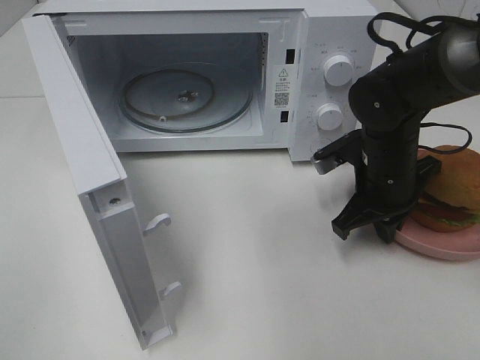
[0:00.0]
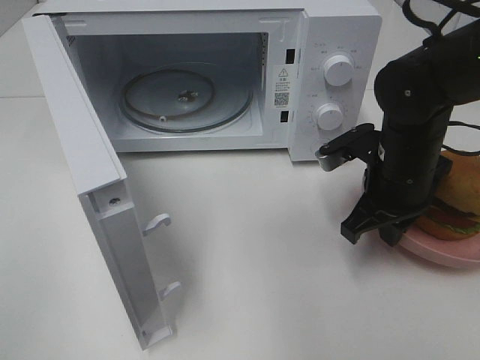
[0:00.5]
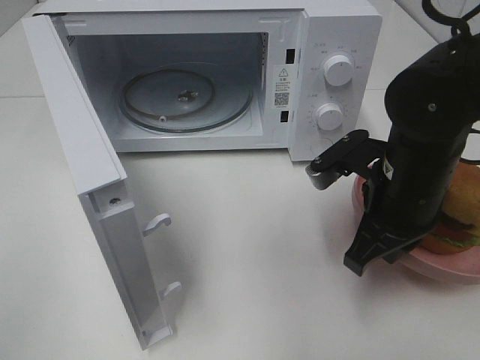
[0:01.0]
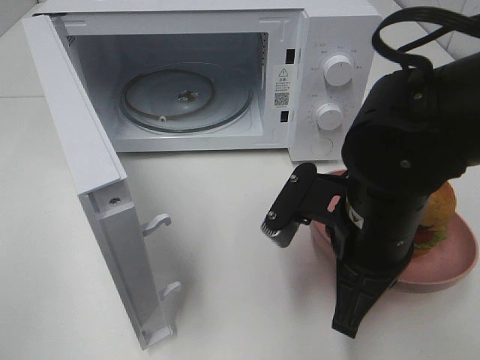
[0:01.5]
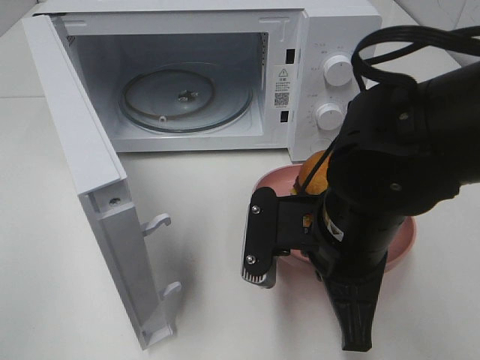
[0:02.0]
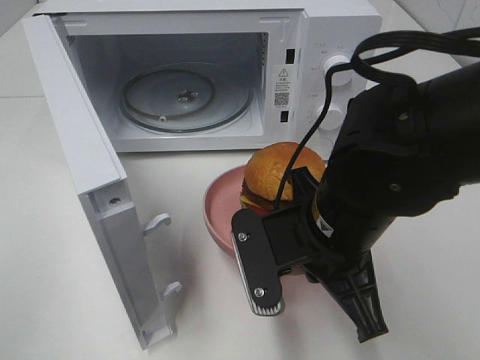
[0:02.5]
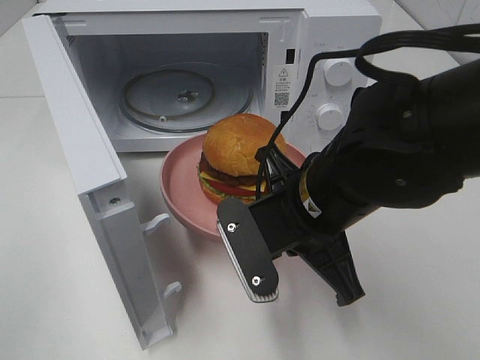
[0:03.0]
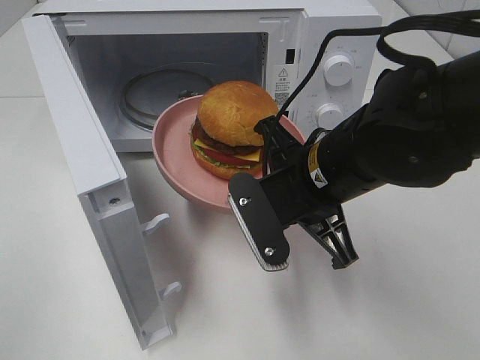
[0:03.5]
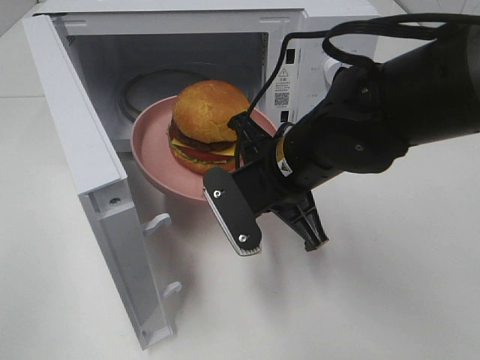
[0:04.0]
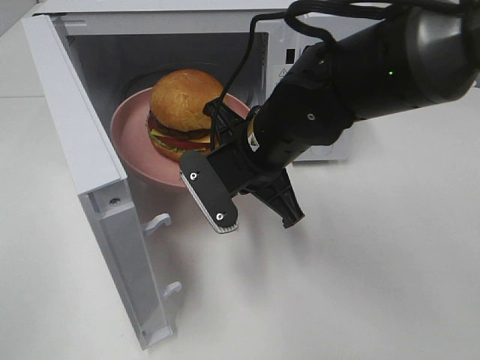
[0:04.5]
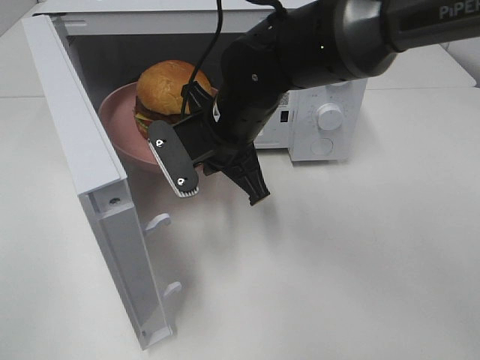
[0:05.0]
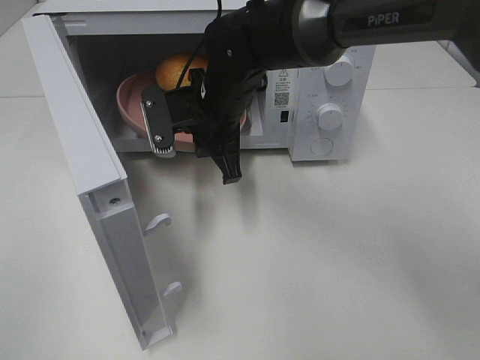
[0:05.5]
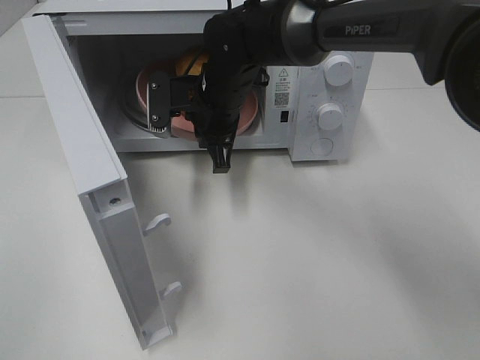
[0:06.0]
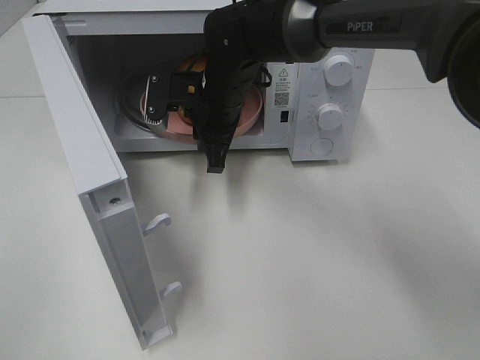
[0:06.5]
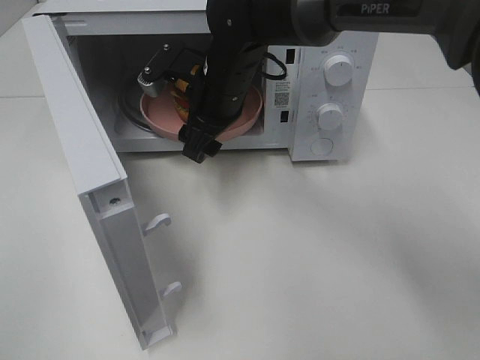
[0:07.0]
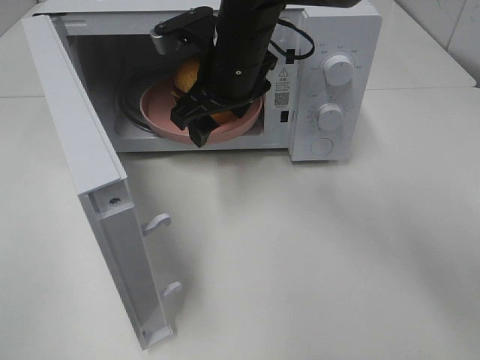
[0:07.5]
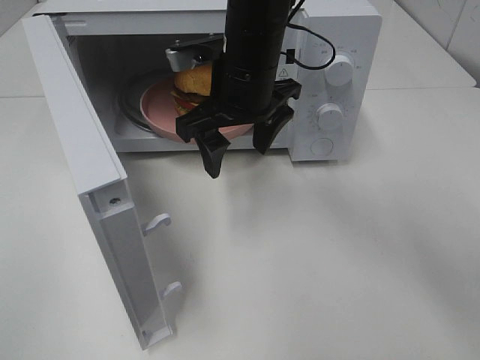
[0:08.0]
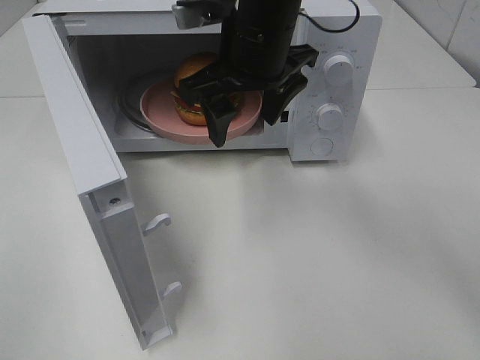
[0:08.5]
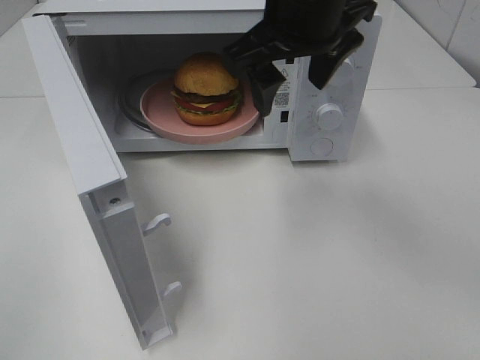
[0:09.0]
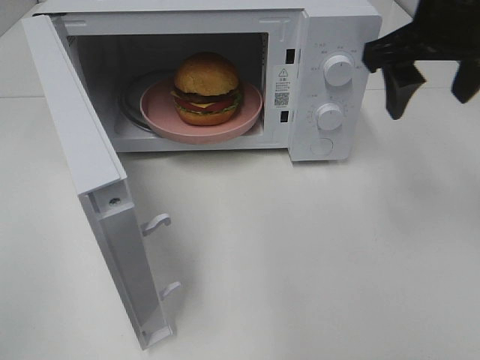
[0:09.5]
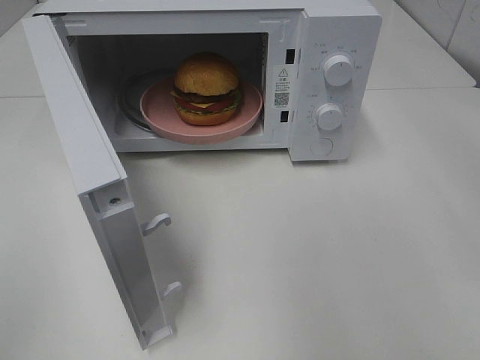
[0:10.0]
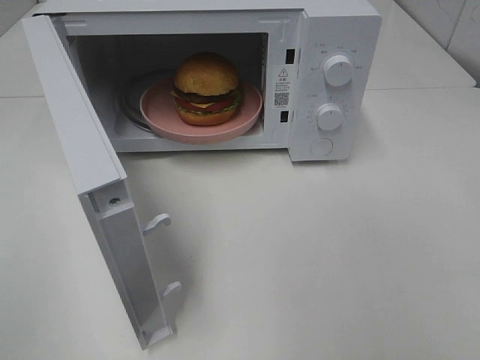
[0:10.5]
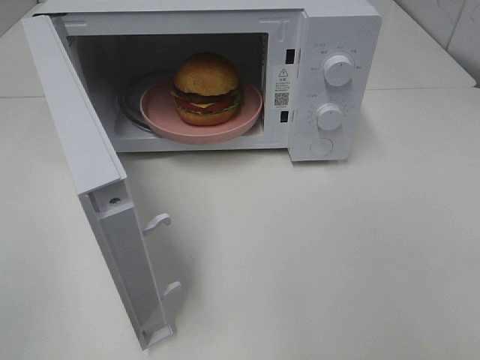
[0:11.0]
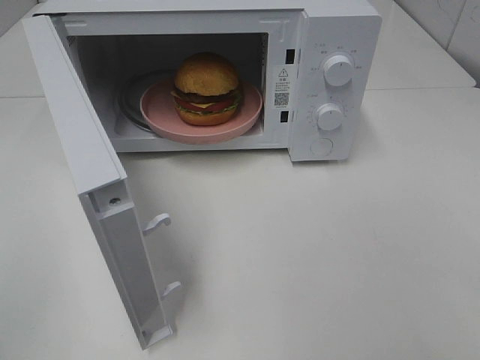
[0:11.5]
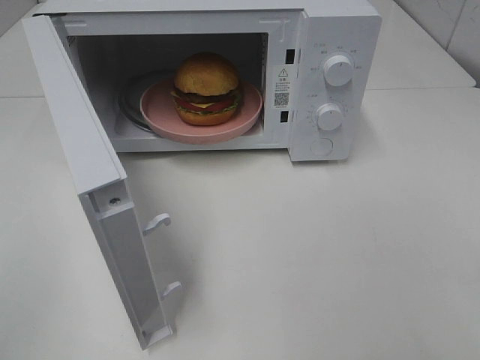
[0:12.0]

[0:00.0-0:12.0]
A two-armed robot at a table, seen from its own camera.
Task of the whole recording: Heat the burger.
Step, 0:00.0 to 0:06.5: Right hand: place the plate in the microwave.
0:00.0 to 0:02.0: The right gripper is displaced backward, to the left and upward by approximately 15 cm.
0:02.0 to 0:04.0: The right gripper shifts approximately 5 cm forward.
0:04.0 to 0:06.0: The right gripper travels forward and to the left by some 15 cm.
0:06.0 to 0:08.0: The right gripper is displaced upward by approximately 5 cm, and opens its fingers.
0:08.0 to 0:10.0: The right gripper shifts roughly 30 cm to the right, upward and backward.

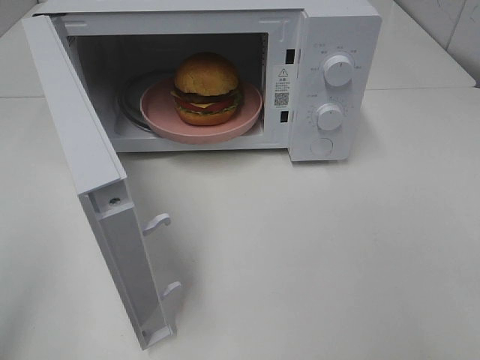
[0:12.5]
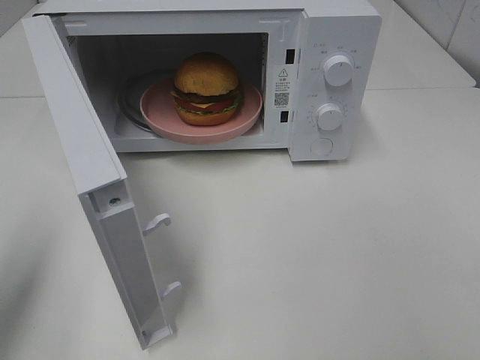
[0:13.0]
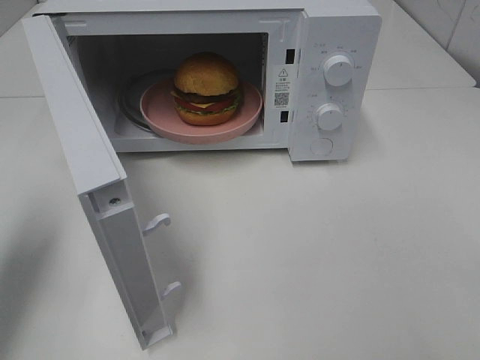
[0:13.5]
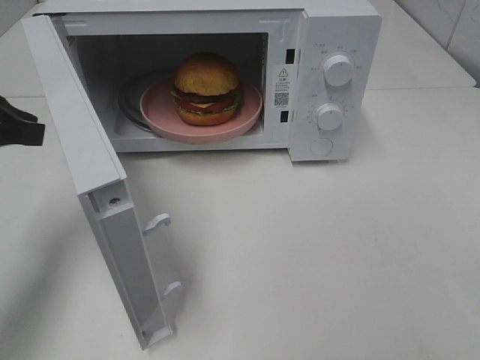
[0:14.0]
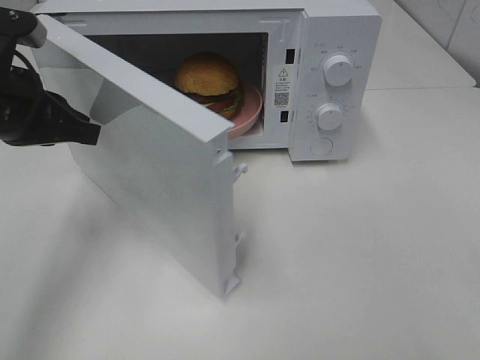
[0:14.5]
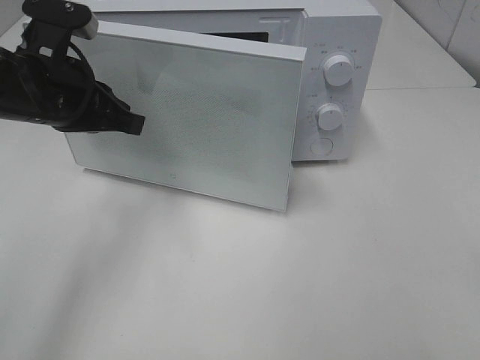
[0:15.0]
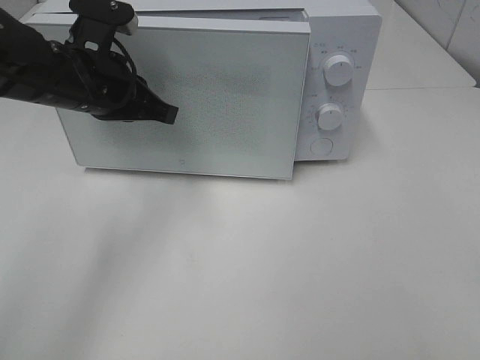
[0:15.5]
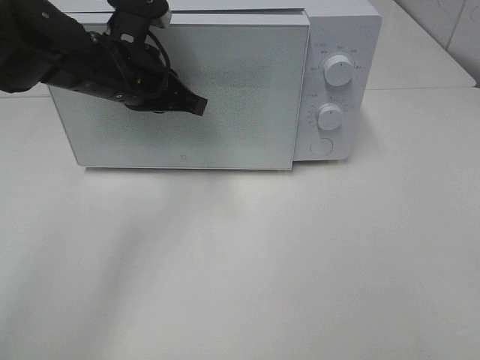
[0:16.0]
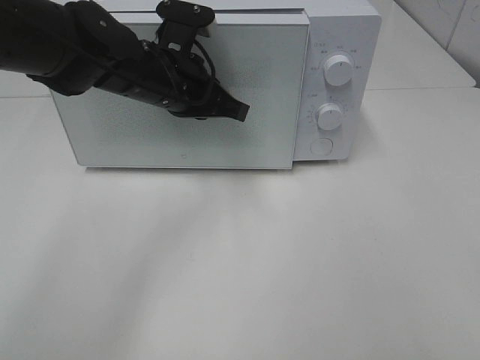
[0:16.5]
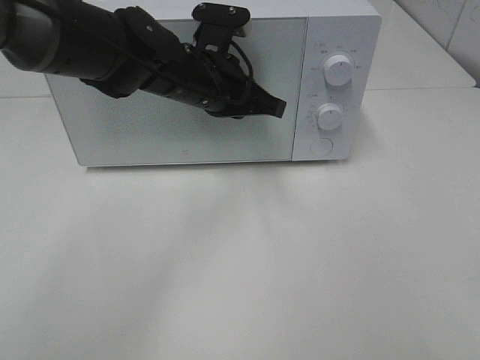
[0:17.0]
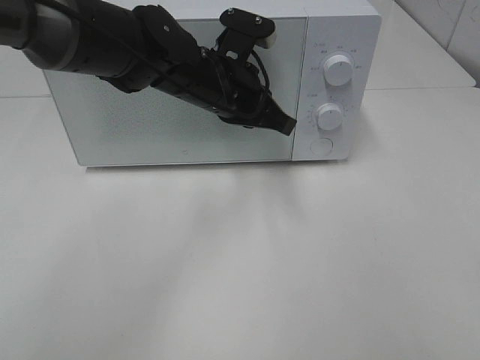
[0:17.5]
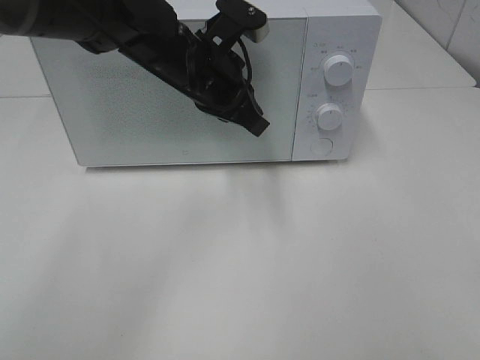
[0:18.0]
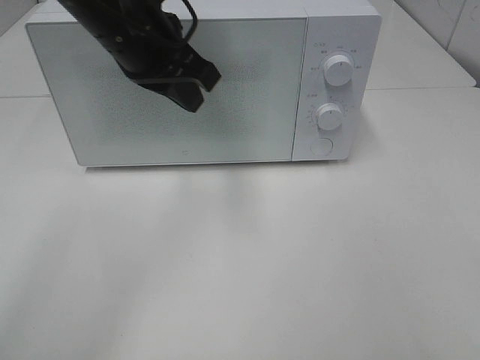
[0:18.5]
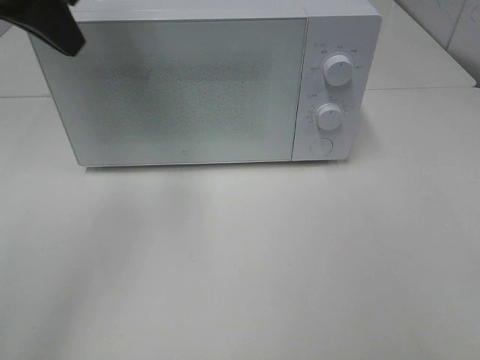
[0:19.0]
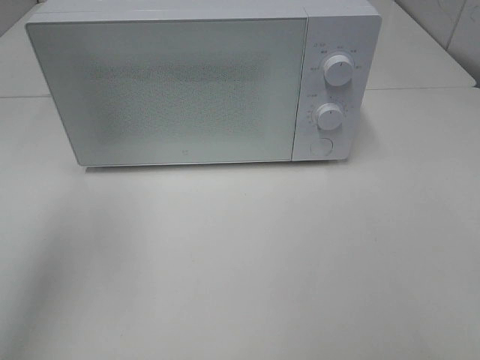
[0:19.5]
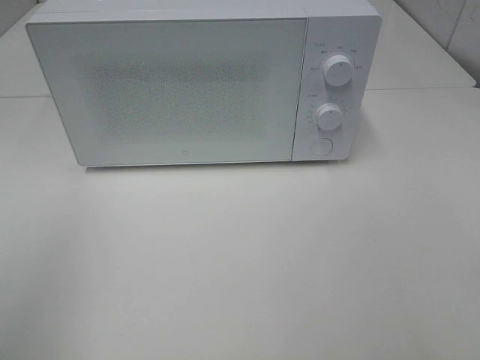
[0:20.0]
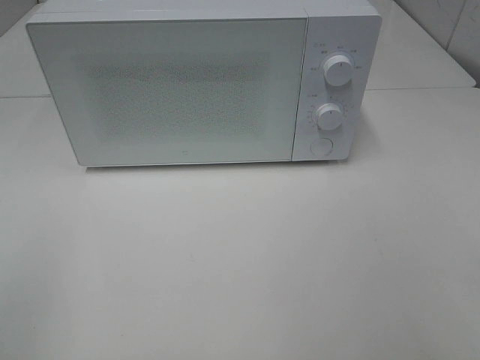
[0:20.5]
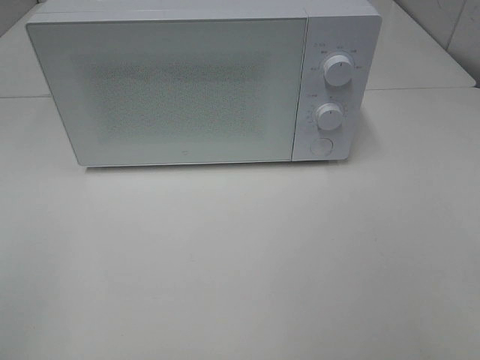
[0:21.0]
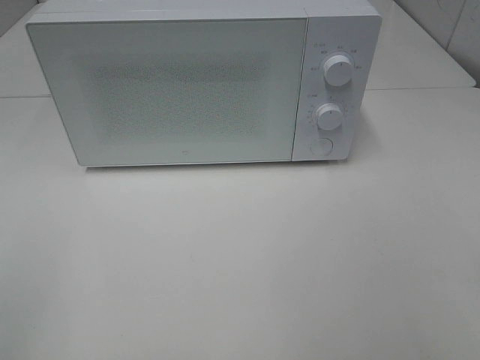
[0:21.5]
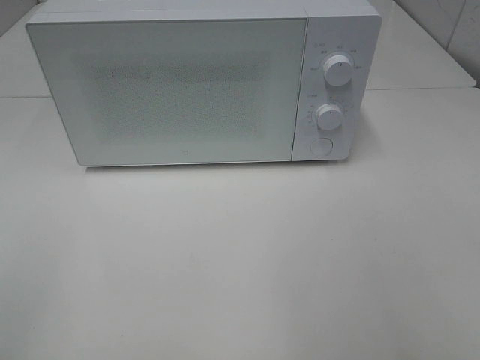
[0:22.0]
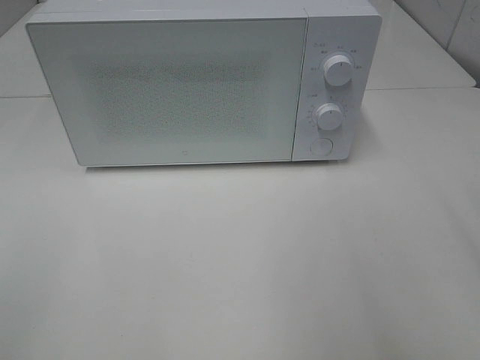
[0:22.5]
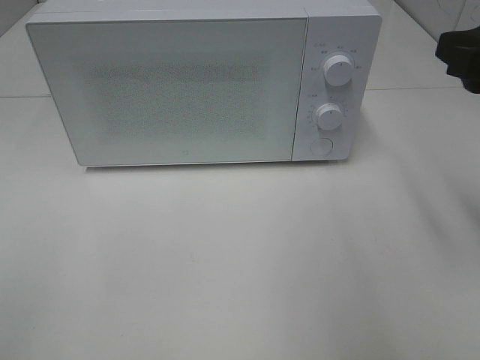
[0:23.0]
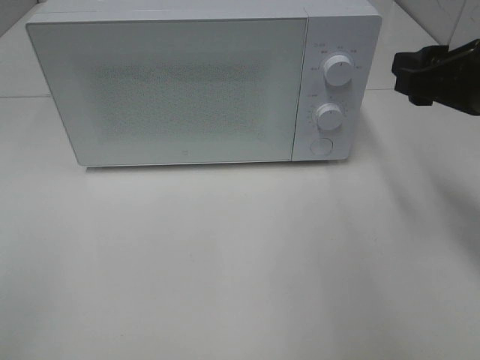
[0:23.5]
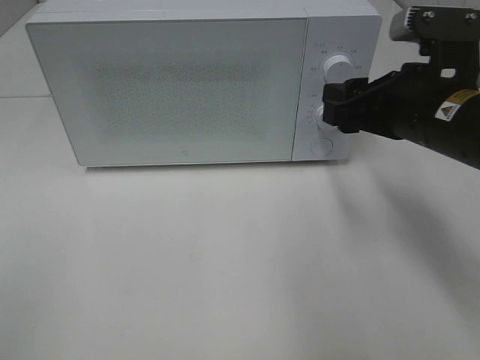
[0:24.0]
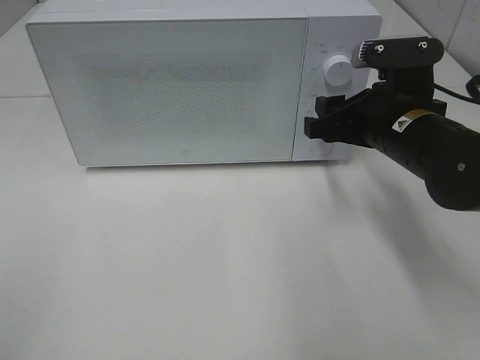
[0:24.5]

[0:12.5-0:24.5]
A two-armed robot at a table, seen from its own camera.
Task of the whole recording: Heat the burger.
Step, 0:12.5 to 0:17.5: Left hand: close the microwave door.
0:12.5 to 0:14.5: The left gripper goes approximately 25 cm forward.
0:14.5 to 0:16.5: The left gripper moves to the right and forward, approximately 15 cm.
0:16.5 to 0:18.5: The left gripper travels upward by about 10 cm.
0:18.5 to 0:20.5: The left gripper travels backward and to the left by about 40 cm.
0:22.5 to 0:24.5: The right gripper heads forward, downward and to the left, covering approximately 25 cm.

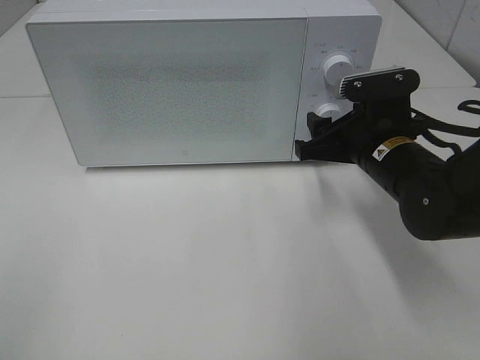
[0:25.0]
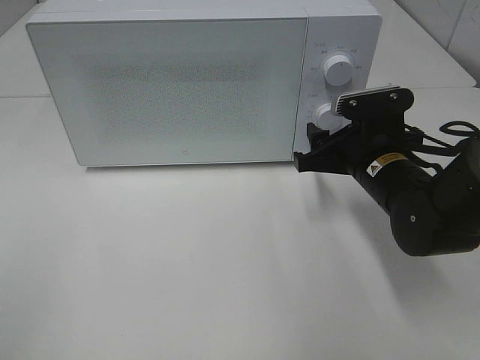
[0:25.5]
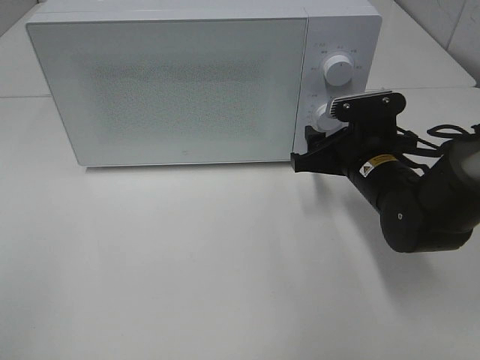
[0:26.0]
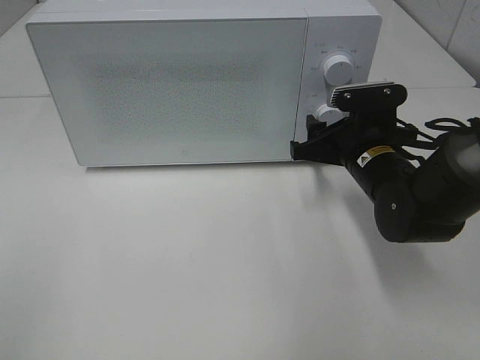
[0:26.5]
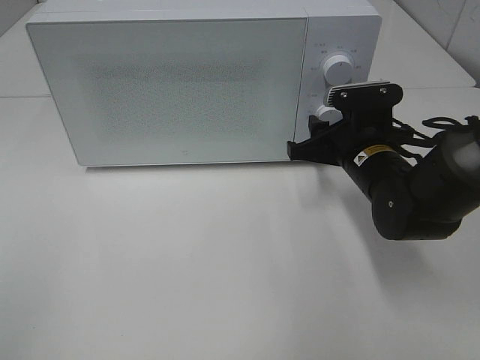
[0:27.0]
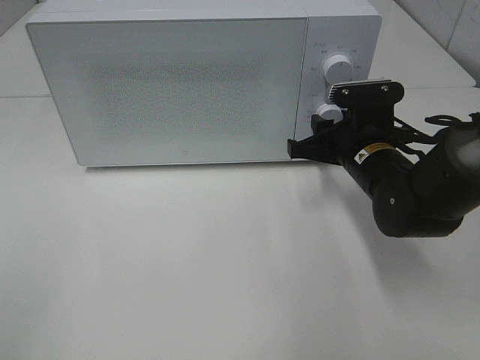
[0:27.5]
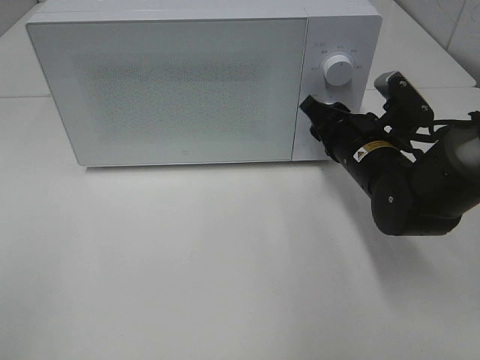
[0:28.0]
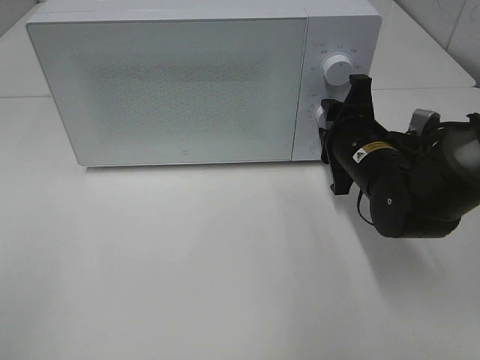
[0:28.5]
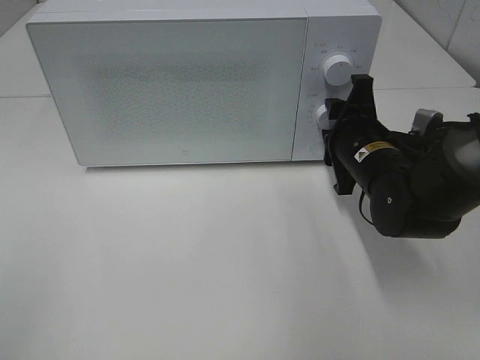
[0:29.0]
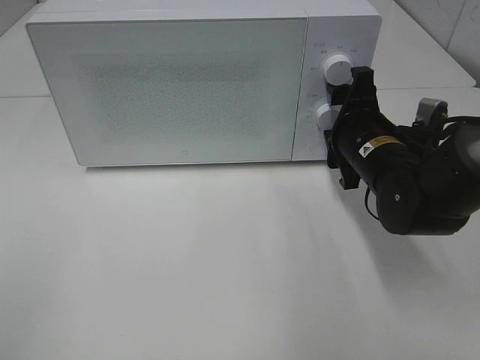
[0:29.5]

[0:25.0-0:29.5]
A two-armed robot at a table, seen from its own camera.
Task of the whole recording: Heat the burger.
Step, 0:25.0 to 0:29.0: Right hand: twist timer button.
0:25.0 to 0:27.0: There are only small adjustments of the grippers.
